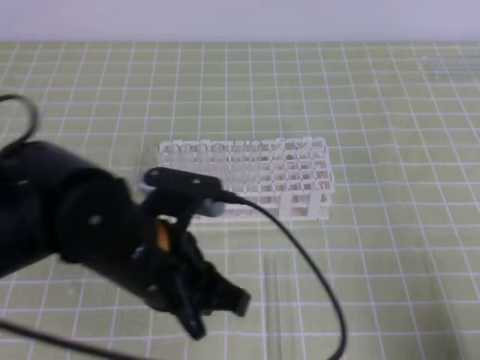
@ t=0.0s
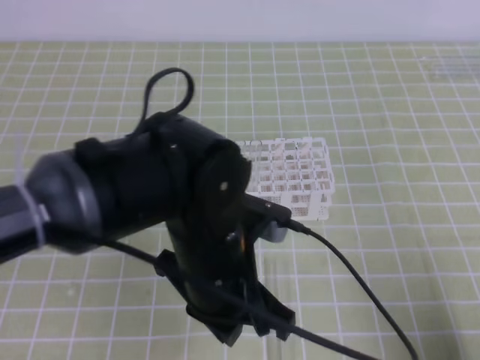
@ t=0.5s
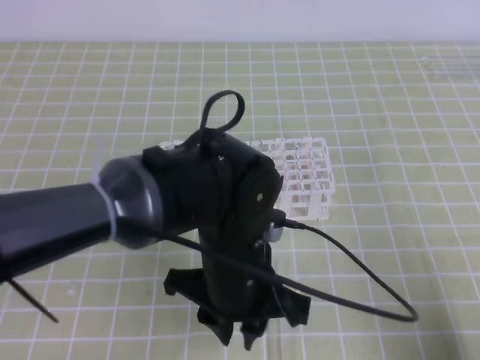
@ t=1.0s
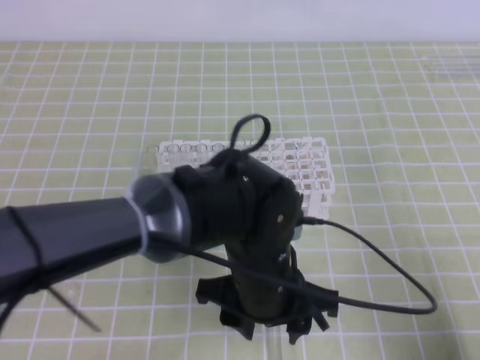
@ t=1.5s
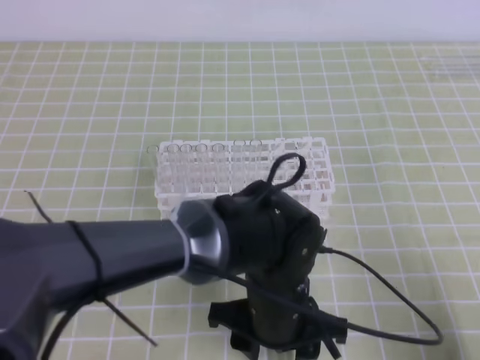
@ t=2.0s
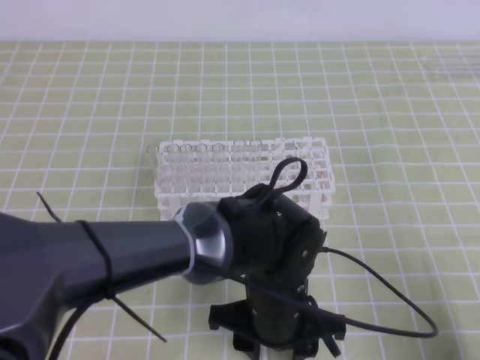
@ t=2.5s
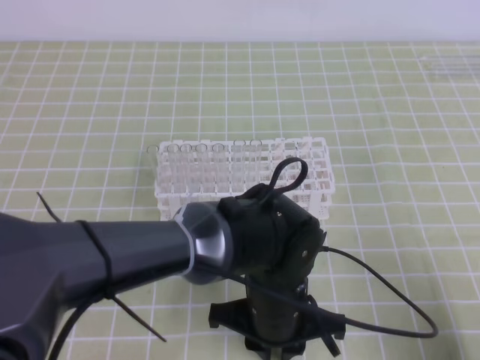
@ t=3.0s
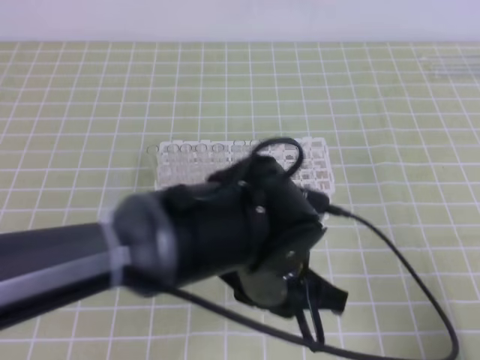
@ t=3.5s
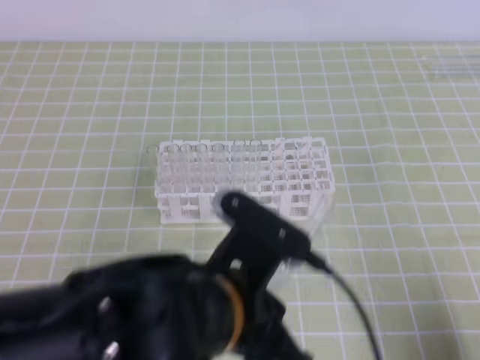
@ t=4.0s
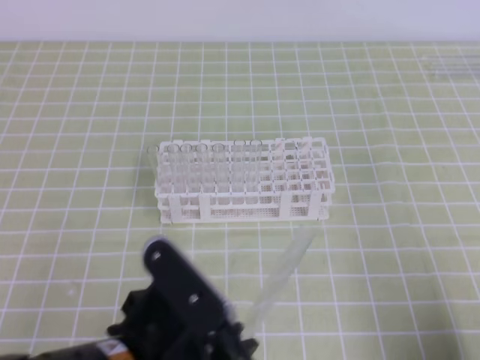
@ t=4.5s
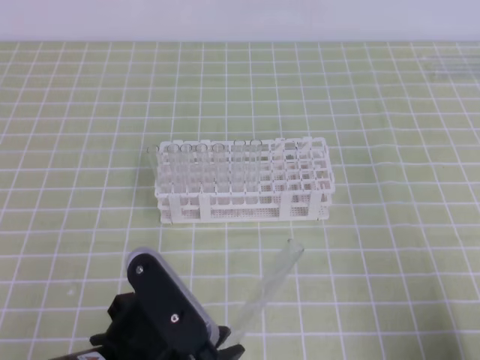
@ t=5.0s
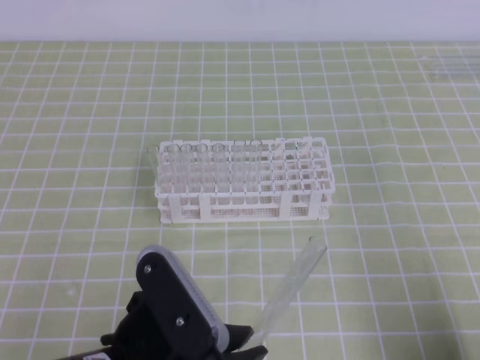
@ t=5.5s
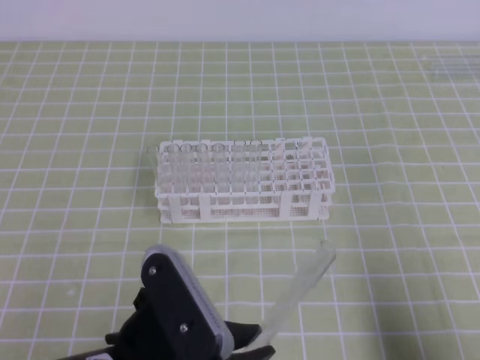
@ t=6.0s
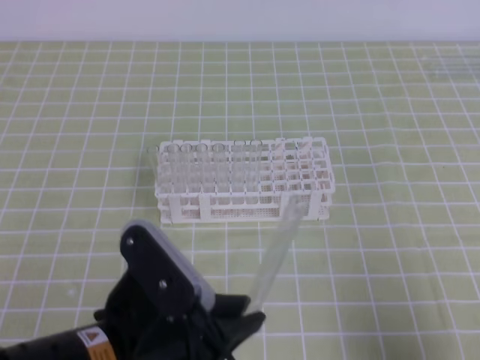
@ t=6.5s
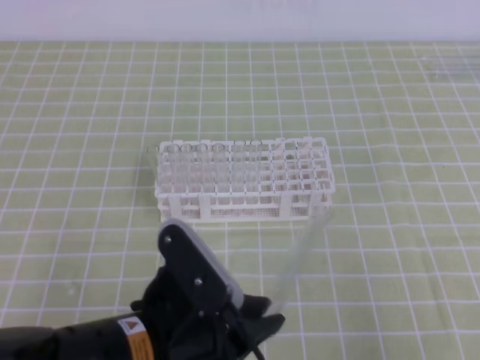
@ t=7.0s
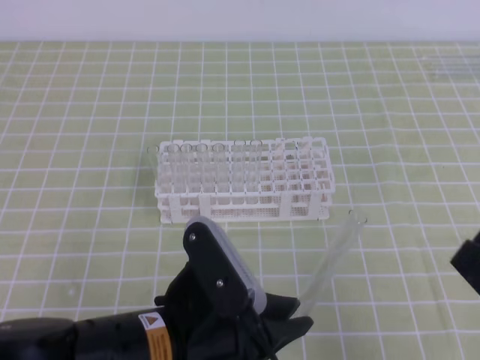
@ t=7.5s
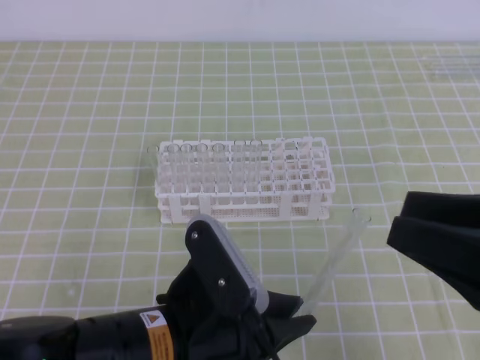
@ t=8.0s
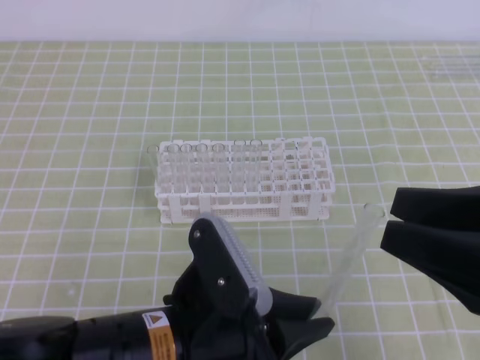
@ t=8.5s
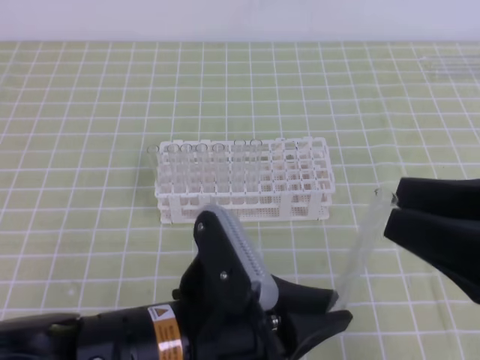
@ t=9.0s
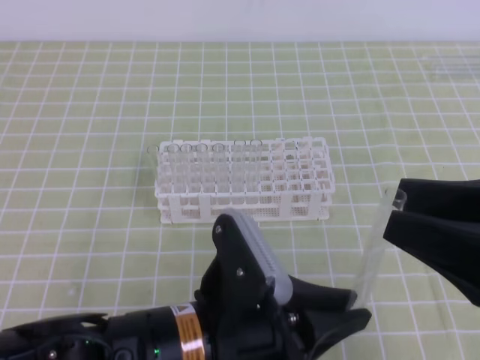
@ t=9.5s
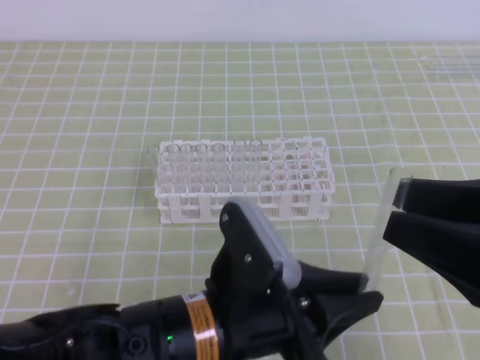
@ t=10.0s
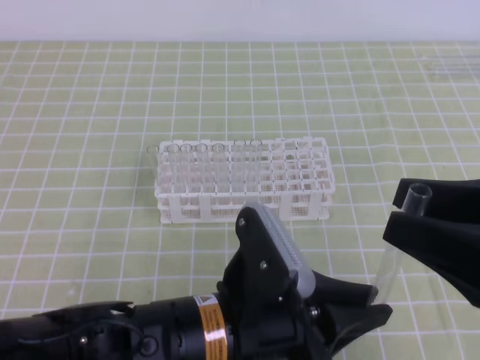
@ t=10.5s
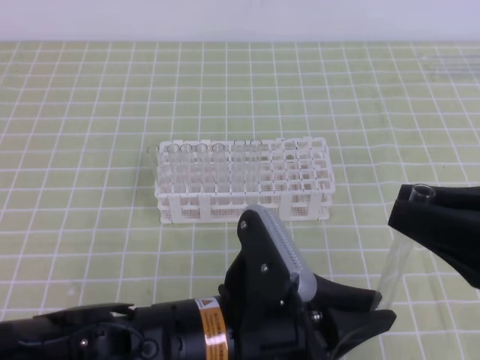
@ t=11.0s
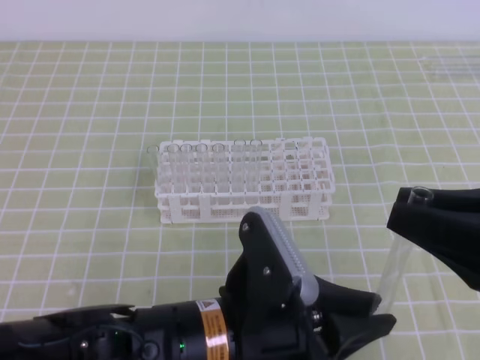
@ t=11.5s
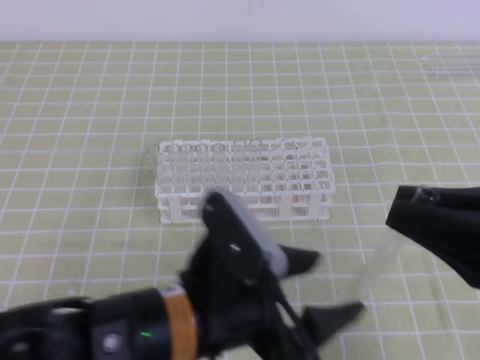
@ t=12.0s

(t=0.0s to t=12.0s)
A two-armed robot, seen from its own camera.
t=0.0s - t=2.0s: The left gripper is displaced to the right and downward by roughly 15 cm, and opens up.
t=2.0s - t=4.0s: The left gripper shifts approximately 10 cm upward, to the left and backward, and closes its fingers.
t=4.0s - t=6.0s: The left gripper goes some 10 cm to the left and backward.
t=6.0s - t=8.0s: The right gripper shifts about 15 cm upward, forward and to the left, and opens its fingers.
t=8.0s - t=10.0s: The grippers make only small movements.
t=10.0s - t=12.0s: The right gripper closes its fingers. Meanwhile the left gripper opens its fingers.

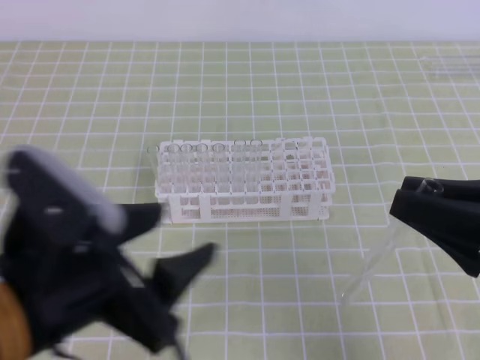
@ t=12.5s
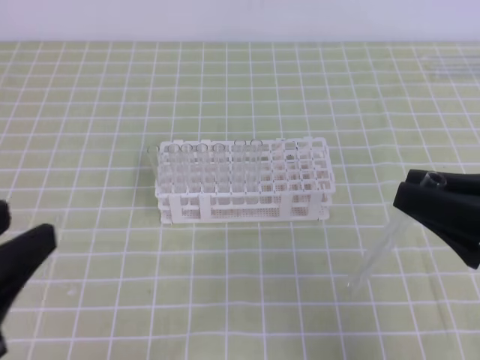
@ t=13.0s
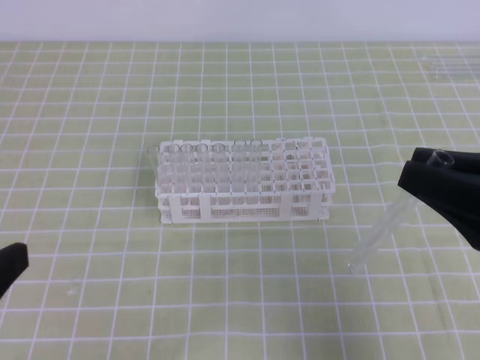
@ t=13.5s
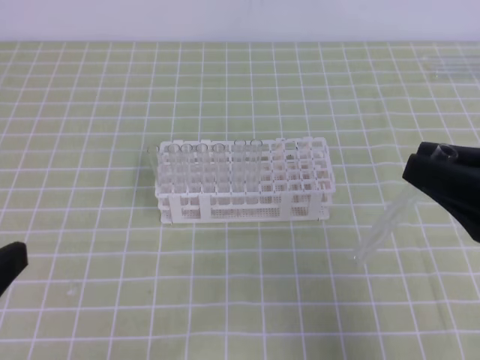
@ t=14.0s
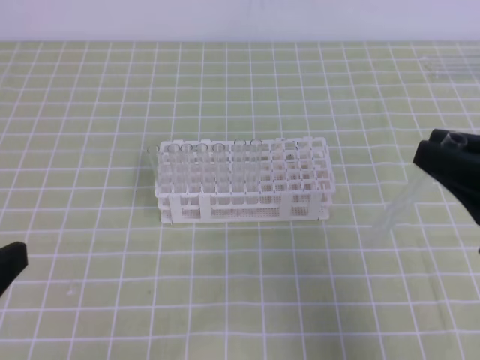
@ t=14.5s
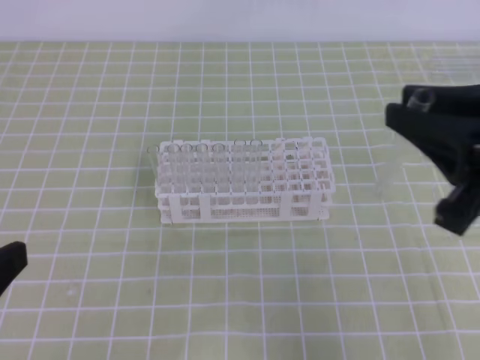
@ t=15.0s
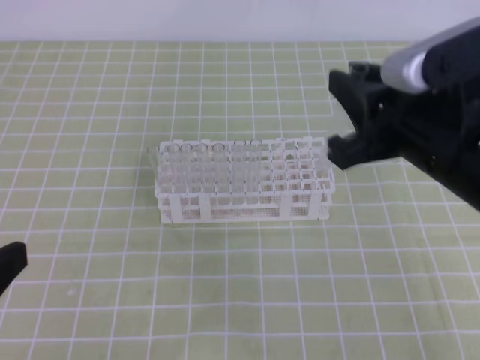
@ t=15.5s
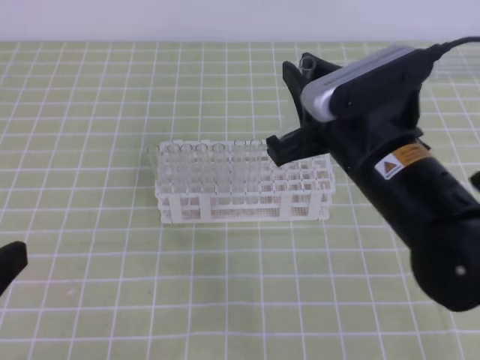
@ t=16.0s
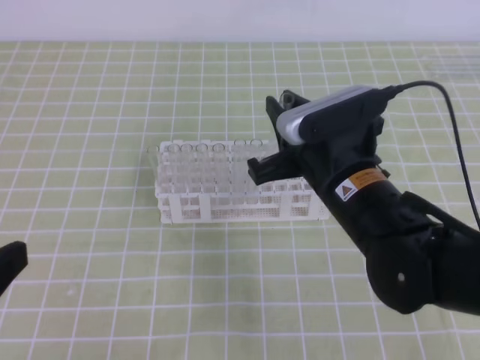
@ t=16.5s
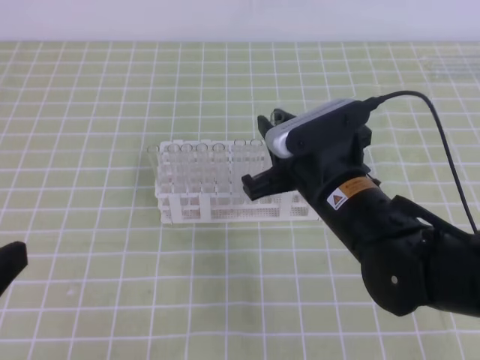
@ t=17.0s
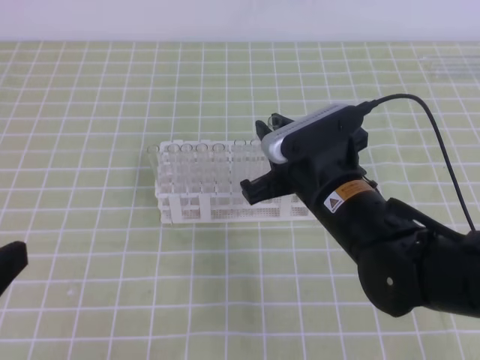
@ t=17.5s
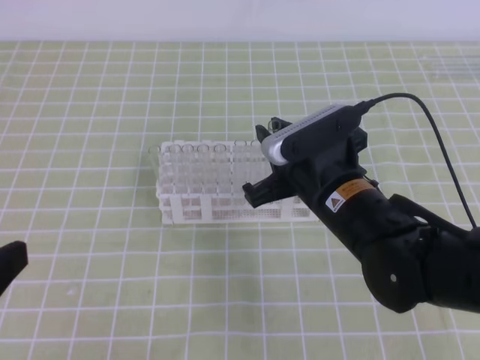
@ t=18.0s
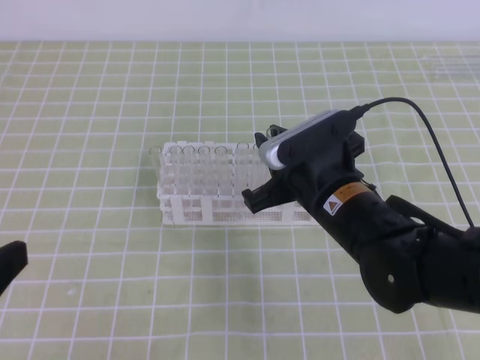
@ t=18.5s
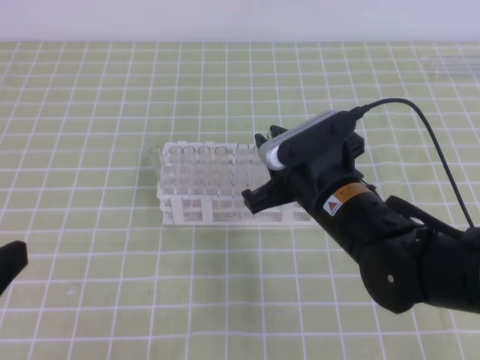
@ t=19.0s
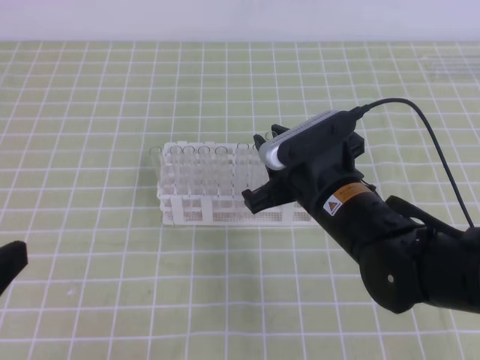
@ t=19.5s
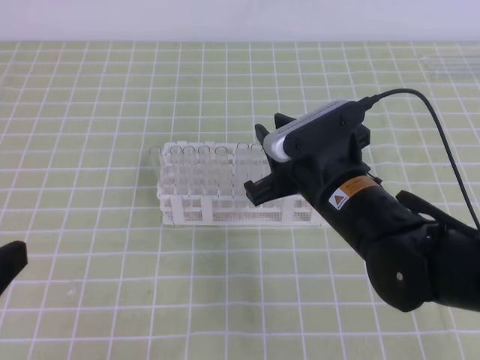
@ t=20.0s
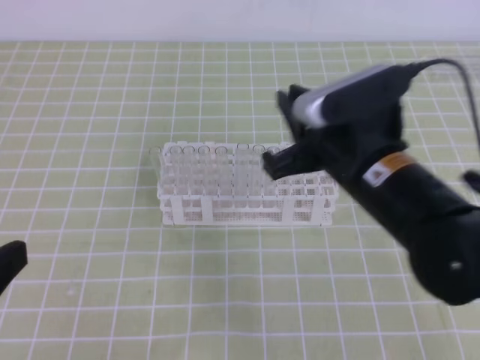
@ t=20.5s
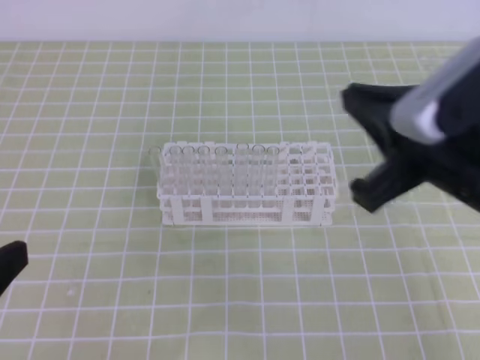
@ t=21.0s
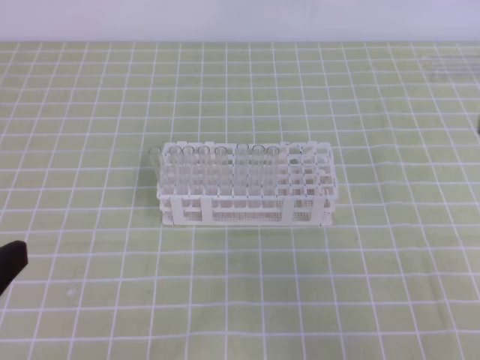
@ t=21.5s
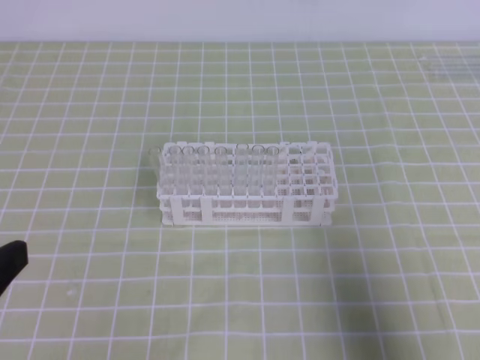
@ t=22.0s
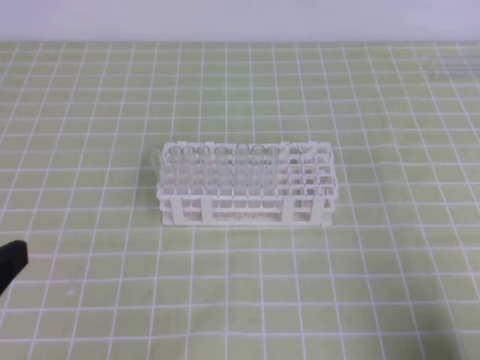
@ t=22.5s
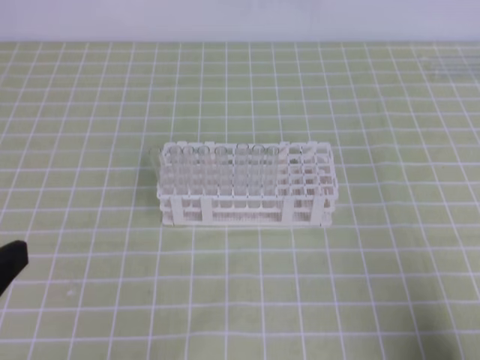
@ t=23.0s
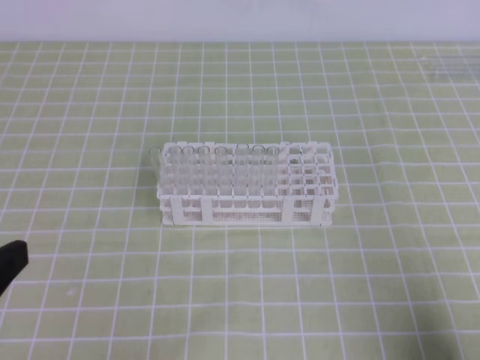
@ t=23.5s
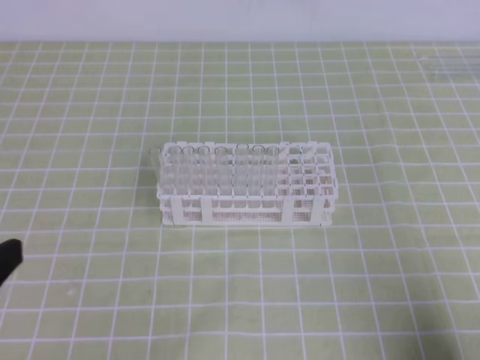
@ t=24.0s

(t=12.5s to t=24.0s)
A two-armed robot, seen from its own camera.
t=12.5s - t=14.5s: The left gripper heads to the left, covering approximately 10 cm, and closes.
t=14.5s - t=16.5s: The right gripper moves to the left and forward, approximately 20 cm.
t=16.5s - t=18.5s: The grippers move only a little.
t=18.5s - t=20.0s: Both grippers stay about where they are.
t=20.0s - t=22.0s: The right gripper shifts about 25 cm to the right and backward, and closes up.
t=22.0s - t=24.0s: The right gripper is displaced downward by some 10 cm.

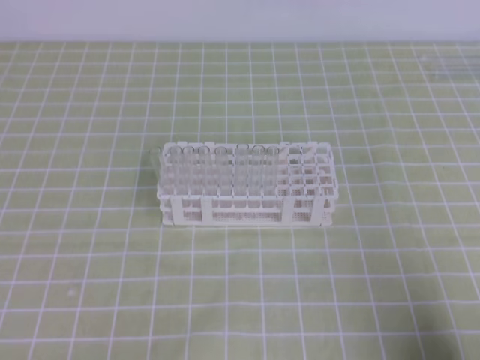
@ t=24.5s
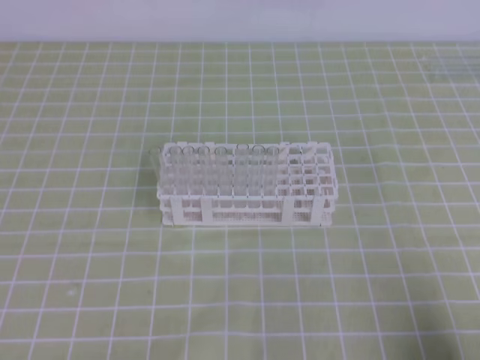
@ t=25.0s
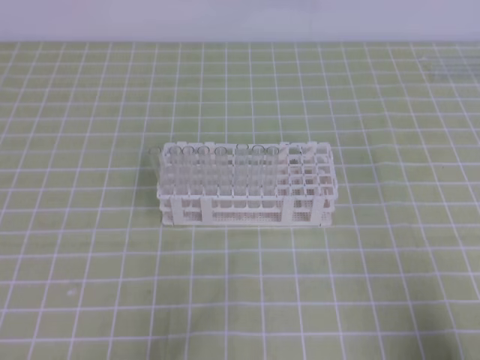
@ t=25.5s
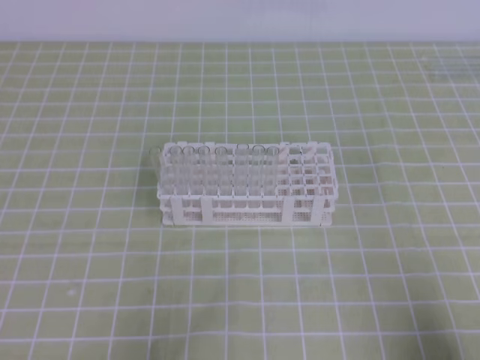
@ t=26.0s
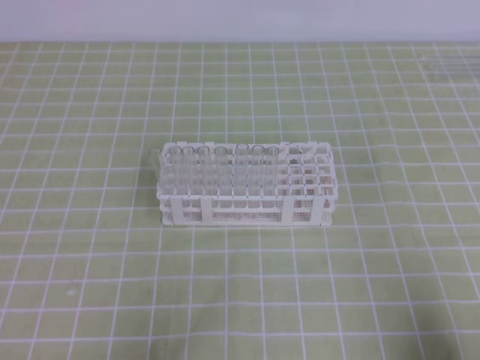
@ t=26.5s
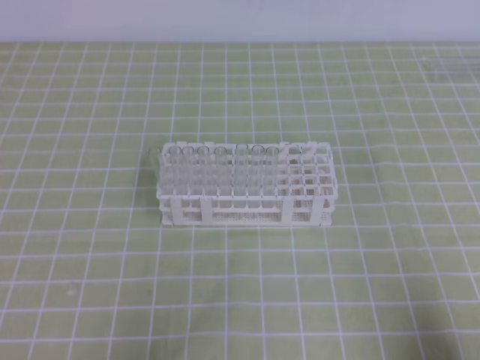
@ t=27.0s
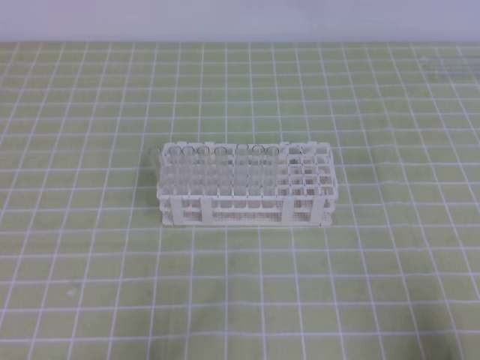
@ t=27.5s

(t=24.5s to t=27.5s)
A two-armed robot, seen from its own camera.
t=24.5s - t=26.0s: The left gripper heads downward, covering approximately 15 cm, and closes.
t=26.0s - t=27.5s: Neither gripper changes place.
